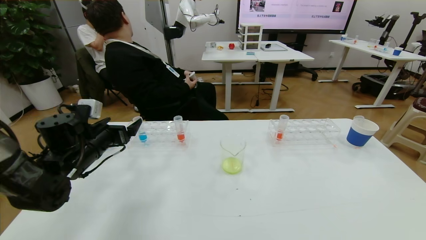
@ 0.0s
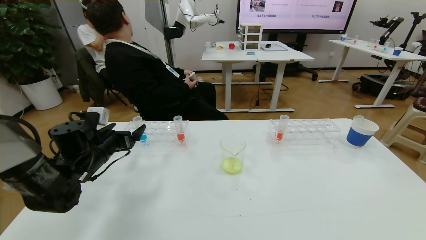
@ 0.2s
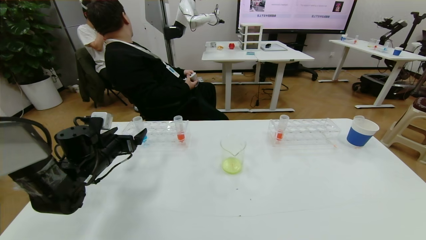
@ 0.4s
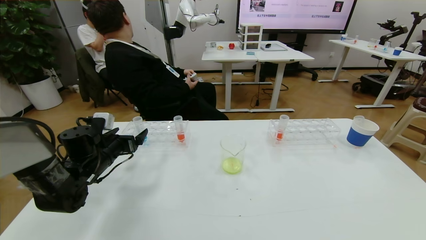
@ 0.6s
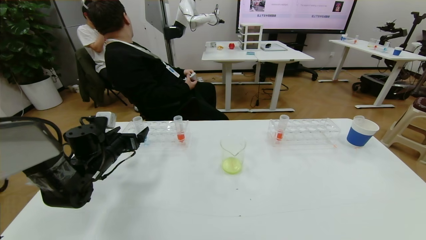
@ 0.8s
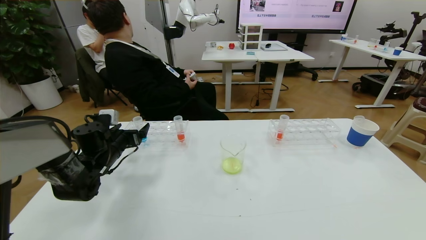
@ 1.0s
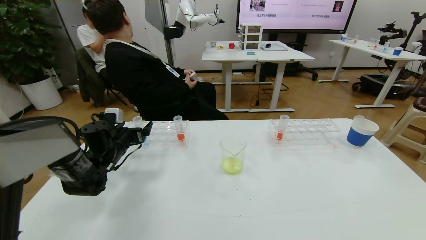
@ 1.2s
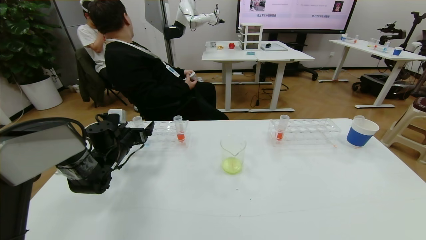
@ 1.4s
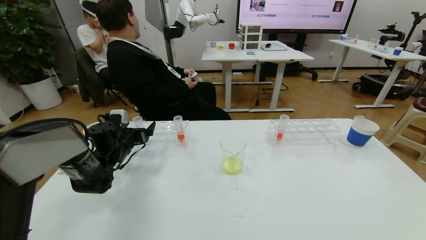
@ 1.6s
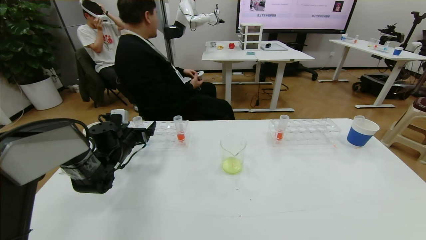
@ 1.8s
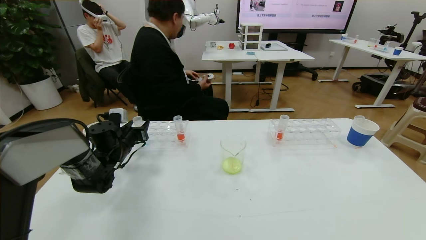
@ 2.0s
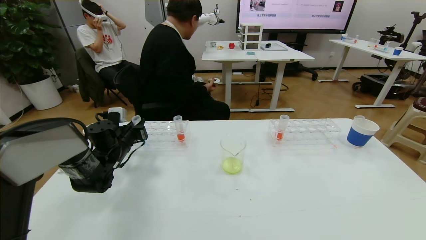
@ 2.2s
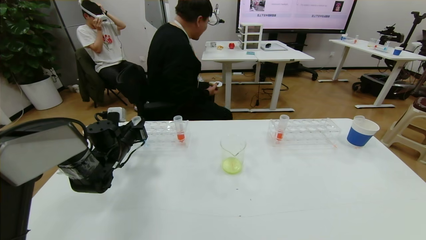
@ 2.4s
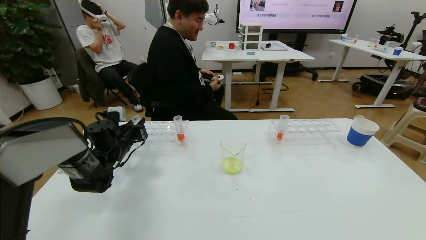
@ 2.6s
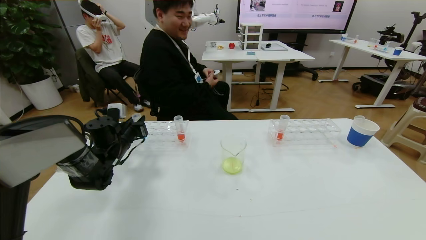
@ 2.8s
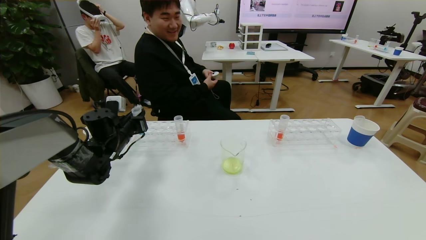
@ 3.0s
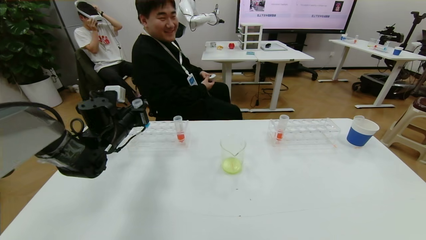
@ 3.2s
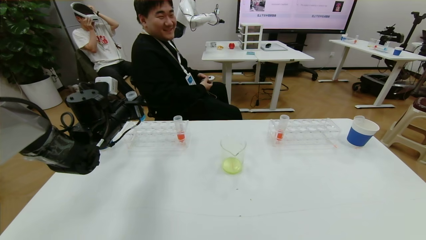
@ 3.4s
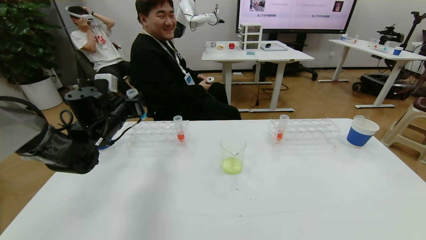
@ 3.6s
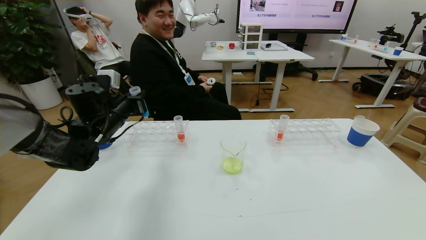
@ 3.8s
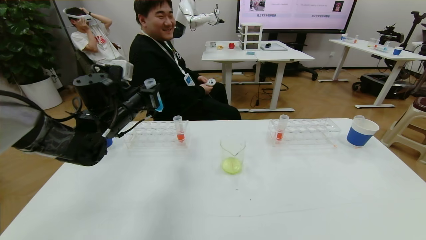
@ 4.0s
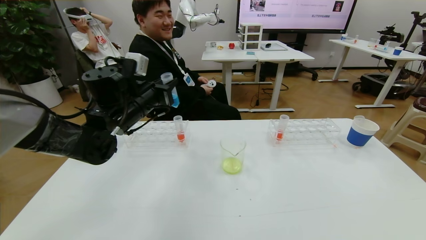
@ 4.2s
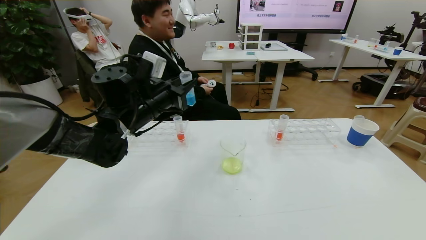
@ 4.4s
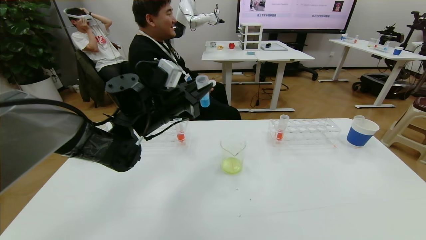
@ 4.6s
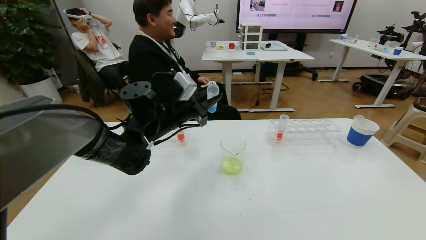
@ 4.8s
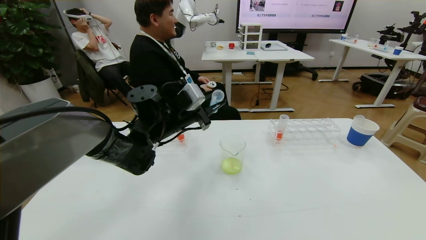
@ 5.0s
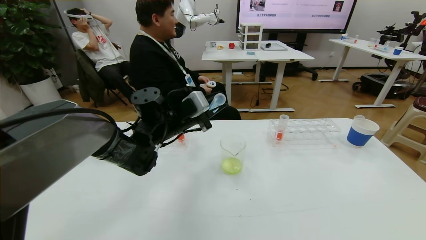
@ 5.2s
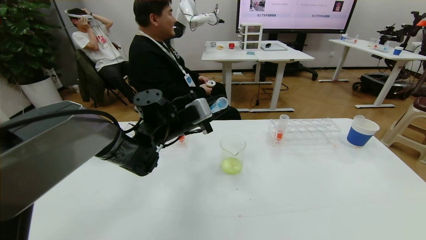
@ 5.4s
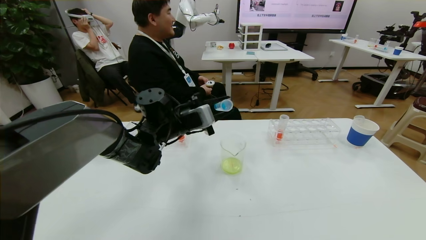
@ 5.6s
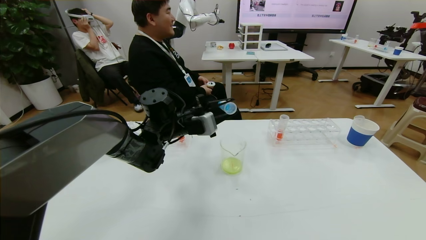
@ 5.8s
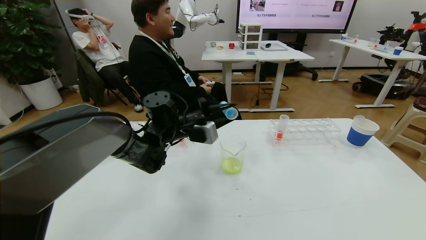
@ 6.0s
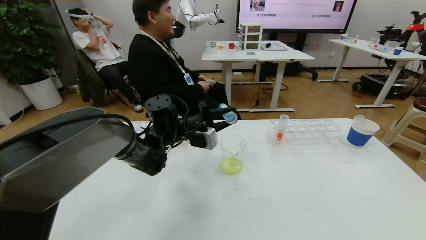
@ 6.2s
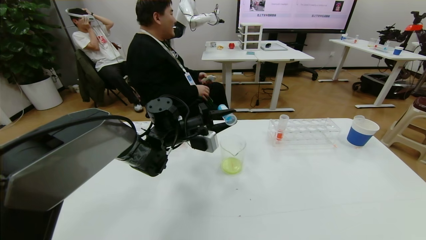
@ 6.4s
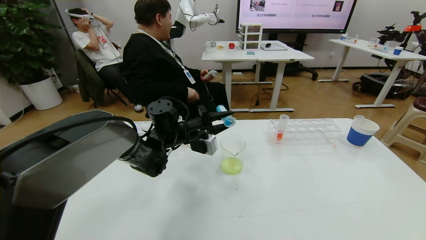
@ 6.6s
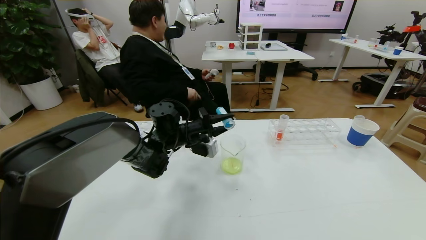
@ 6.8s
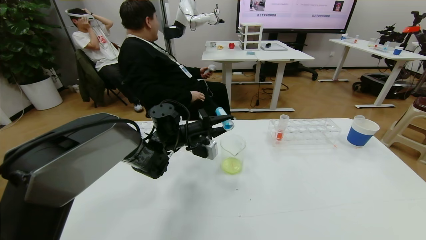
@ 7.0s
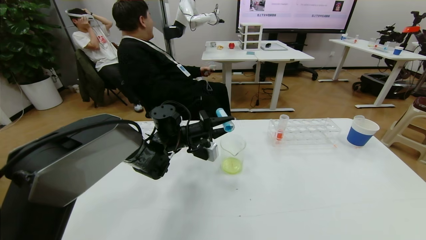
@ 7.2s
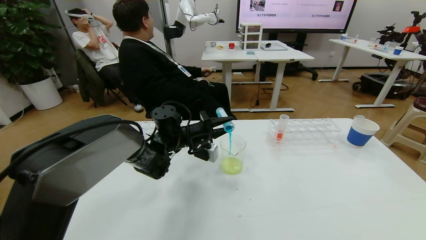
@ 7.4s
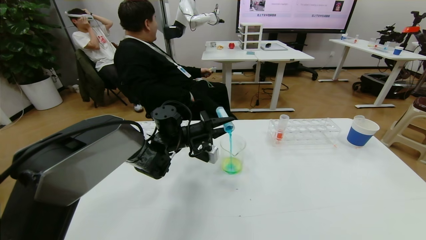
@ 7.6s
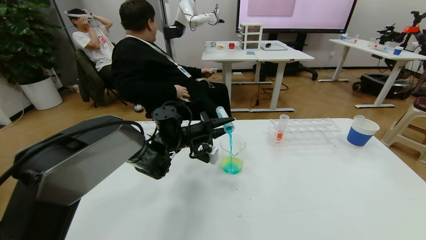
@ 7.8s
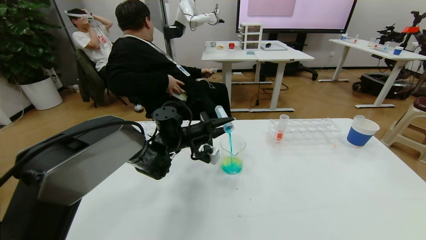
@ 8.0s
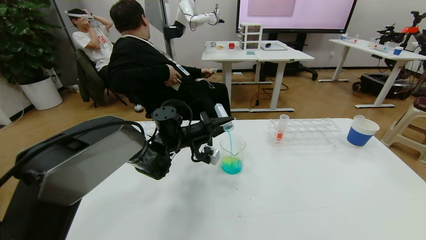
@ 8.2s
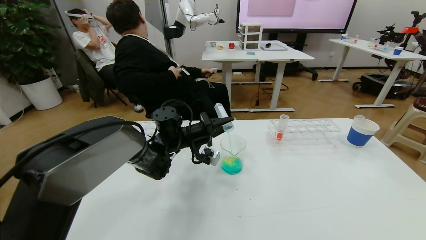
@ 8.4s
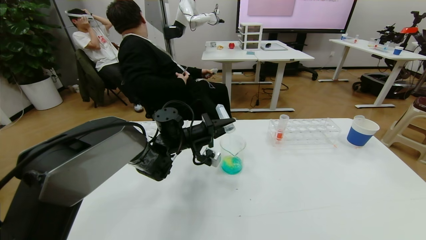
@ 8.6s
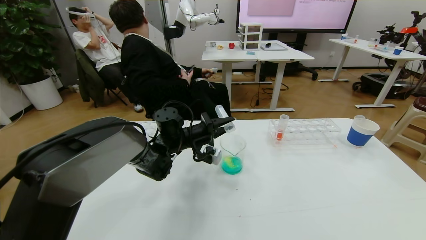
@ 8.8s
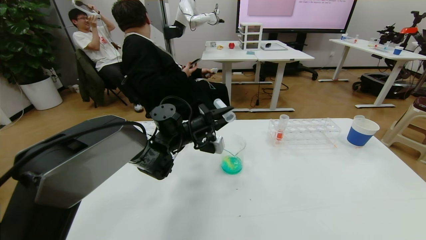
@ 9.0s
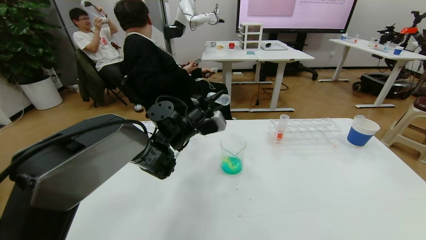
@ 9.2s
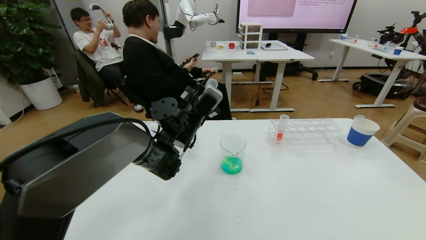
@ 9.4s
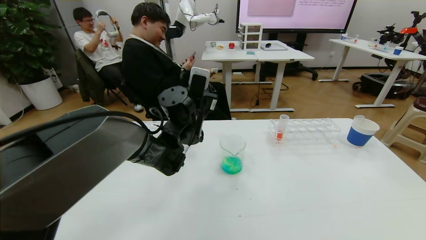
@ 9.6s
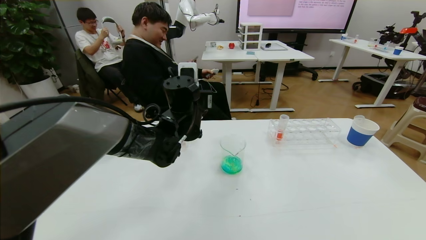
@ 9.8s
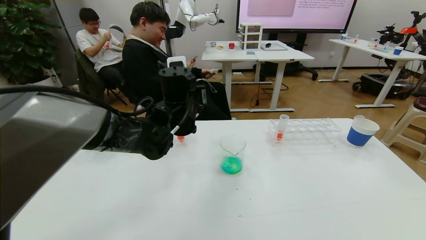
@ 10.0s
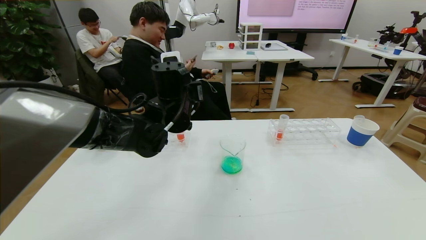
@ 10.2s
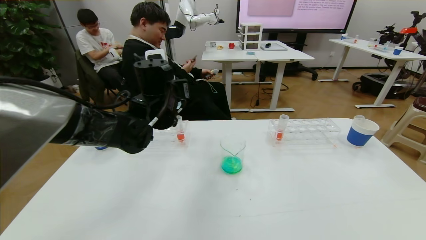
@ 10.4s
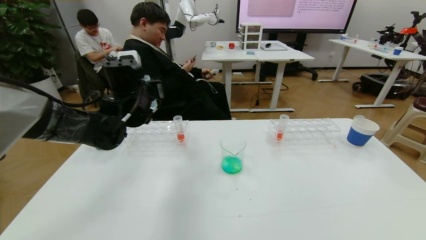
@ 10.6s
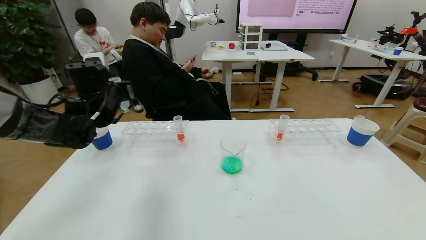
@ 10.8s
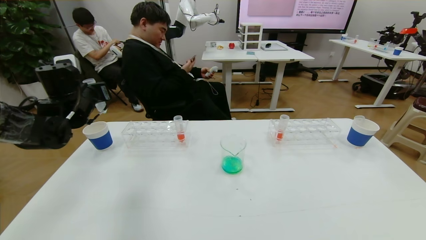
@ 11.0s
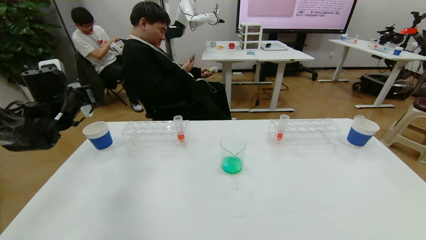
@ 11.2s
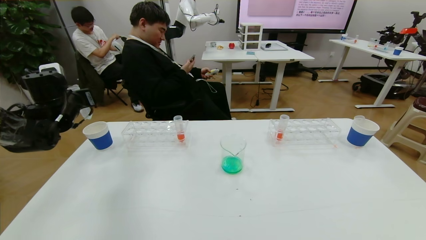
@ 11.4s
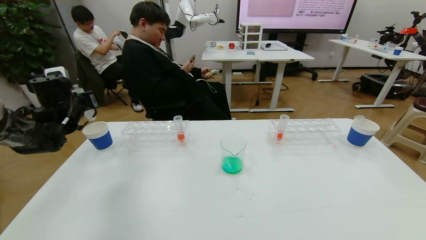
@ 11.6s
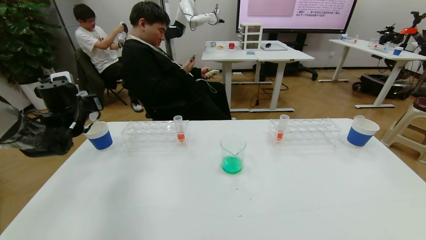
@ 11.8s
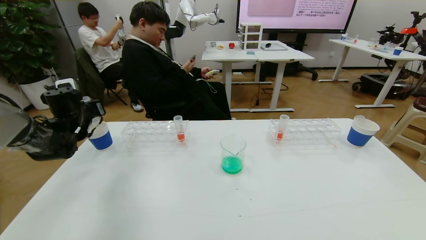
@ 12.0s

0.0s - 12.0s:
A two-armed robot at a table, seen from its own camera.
Task of the whole recording: pick up the test tube with yellow pigment and the test tube with blue pigment by grippers and pour them into the beaker.
0.0s - 1.6s: The left gripper shifts approximately 10 cm forward and downward.
1.6s - 3.0s: The left gripper changes place by approximately 5 cm, and closes its fingers.
3.0s - 4.4s: The left gripper shifts approximately 15 cm to the right and upward.
4.4s - 6.0s: The left gripper heads downward and to the right, covering about 10 cm.
6.0s - 7.6s: The left gripper shifts by some 5 cm.
7.6s - 9.0s: There are only small adjustments of the grippers.
9.0s - 10.4s: The left gripper is displaced upward by roughly 10 cm.
10.4s - 12.0s: The left gripper is displaced to the left by roughly 25 cm.

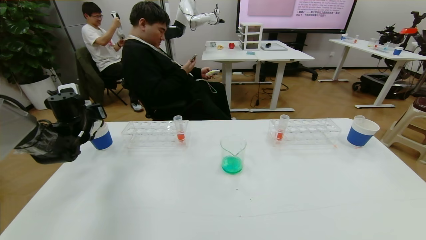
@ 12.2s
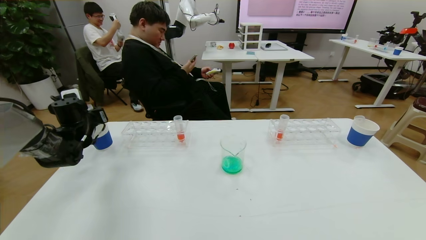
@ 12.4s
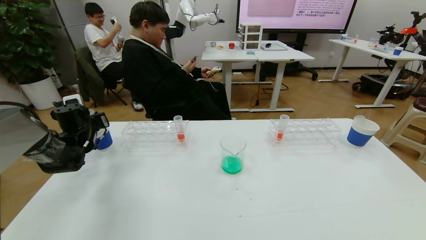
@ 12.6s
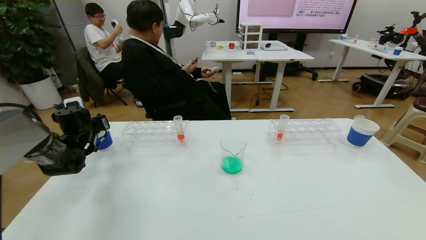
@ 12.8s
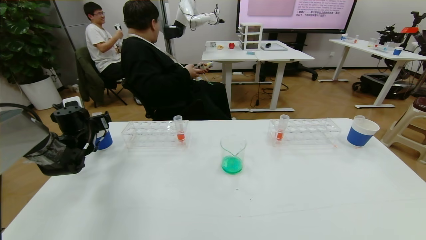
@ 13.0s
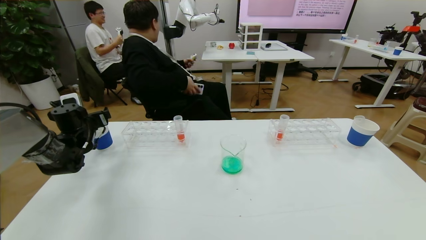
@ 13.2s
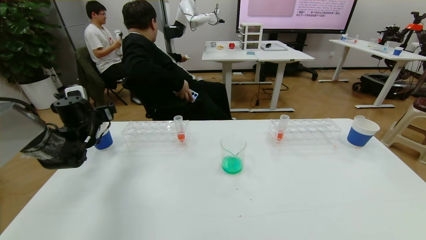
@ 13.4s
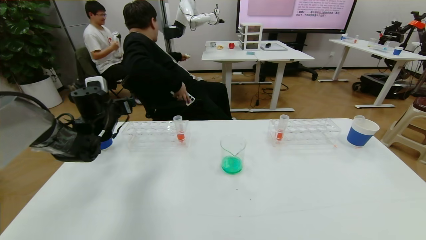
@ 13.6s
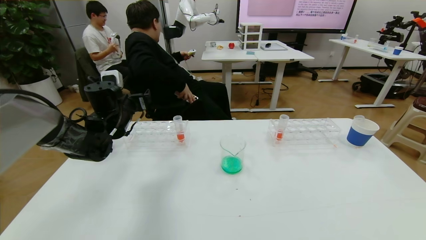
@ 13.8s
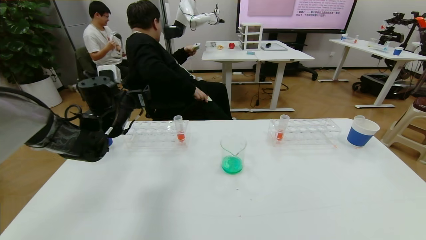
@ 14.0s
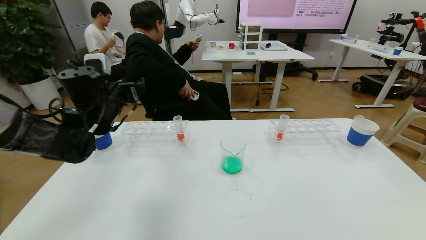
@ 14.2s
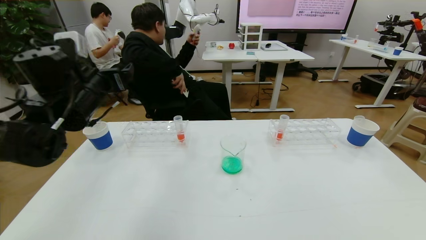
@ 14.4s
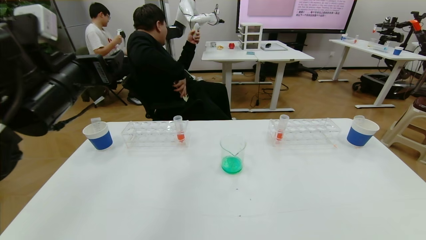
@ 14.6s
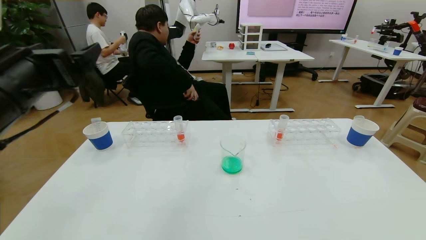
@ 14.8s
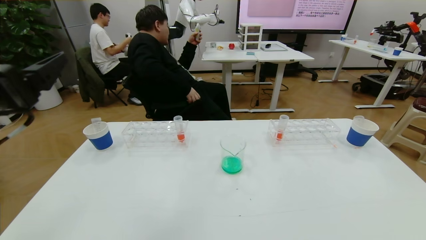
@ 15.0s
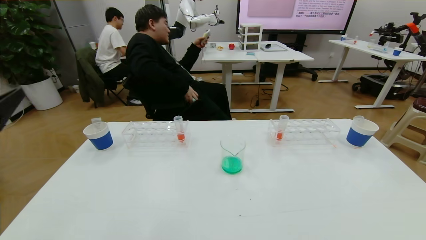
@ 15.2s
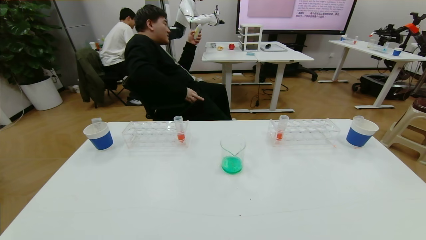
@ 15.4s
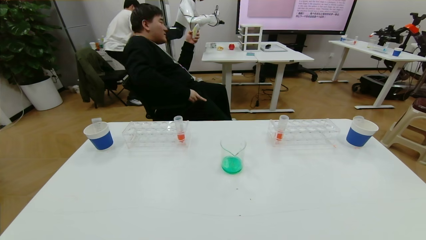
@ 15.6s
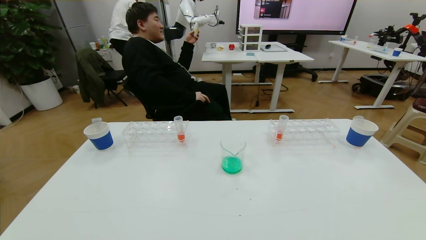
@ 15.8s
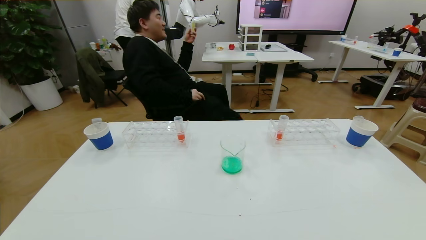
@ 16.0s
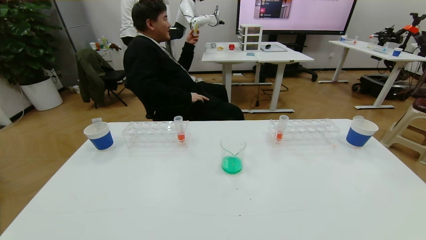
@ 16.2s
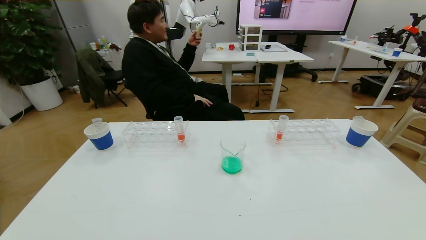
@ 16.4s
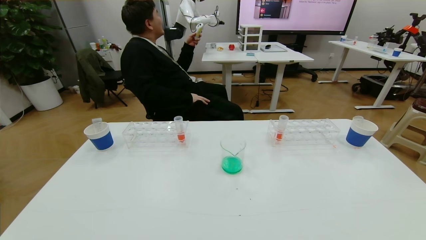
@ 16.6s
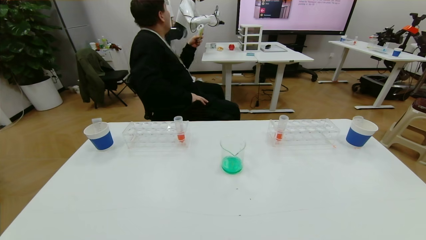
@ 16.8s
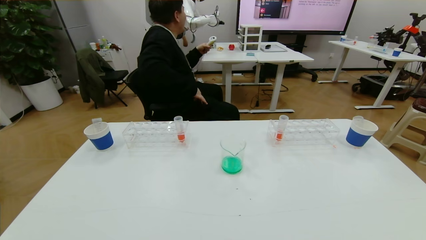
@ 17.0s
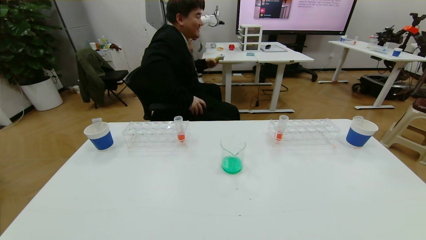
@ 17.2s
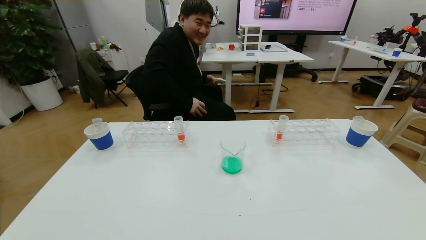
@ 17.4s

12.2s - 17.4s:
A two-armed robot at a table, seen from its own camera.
Task of the whole recording: pick up the test tube with yellow pigment and the test tube with blue pigment by grippers and pour them into the beaker.
Step, 12.2s - 17.4s: Pour the blue reagent into the graduated cylinder and place the test tube into the paper cup.
12.2s - 14.0s: The left gripper is displaced to the right and upward by some 15 cm, and opens.
14.0s - 15.6s: The left gripper shifts about 40 cm backward.
15.6s - 17.4s: The left gripper travels downward by some 20 cm.
